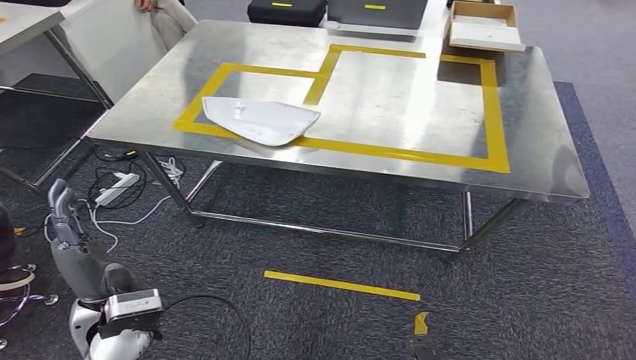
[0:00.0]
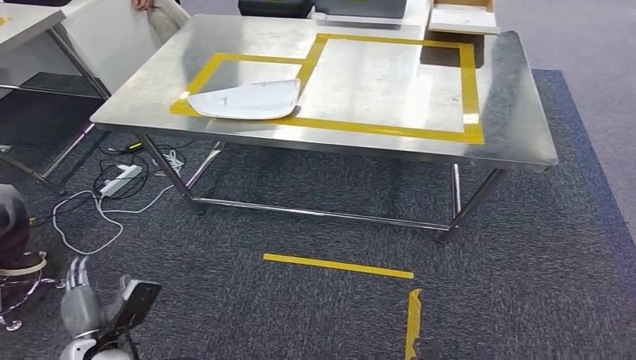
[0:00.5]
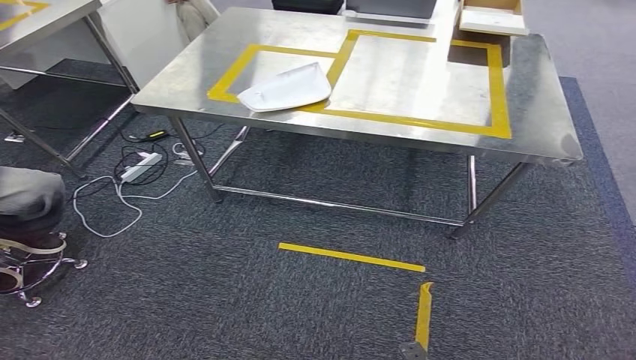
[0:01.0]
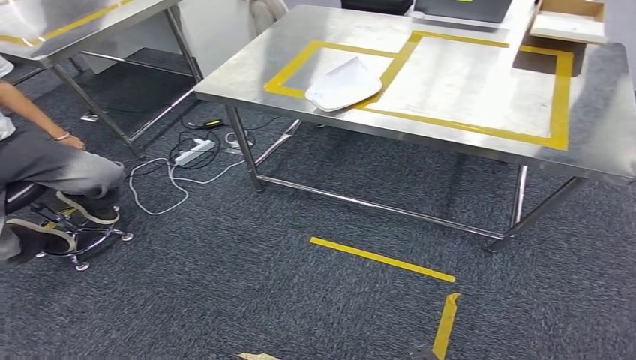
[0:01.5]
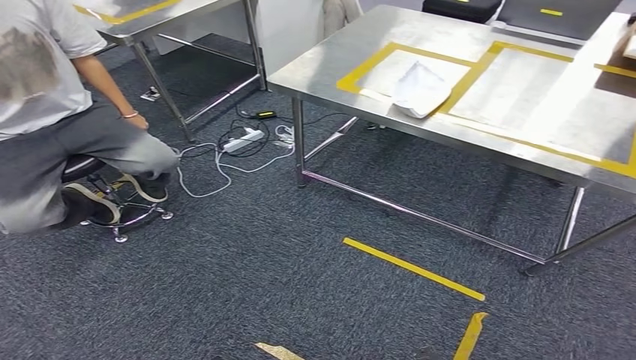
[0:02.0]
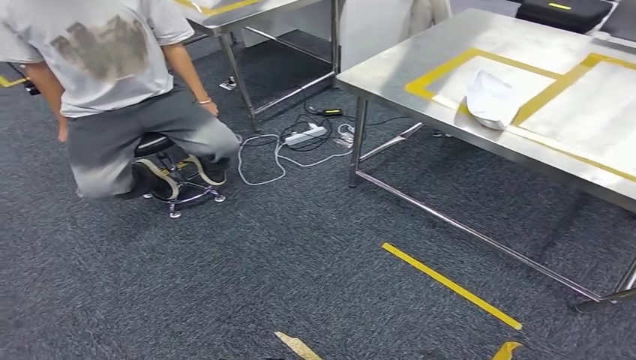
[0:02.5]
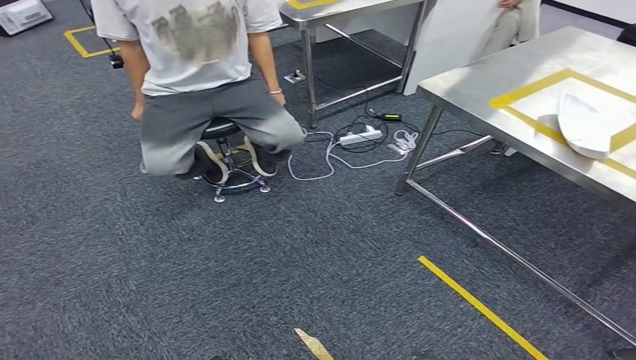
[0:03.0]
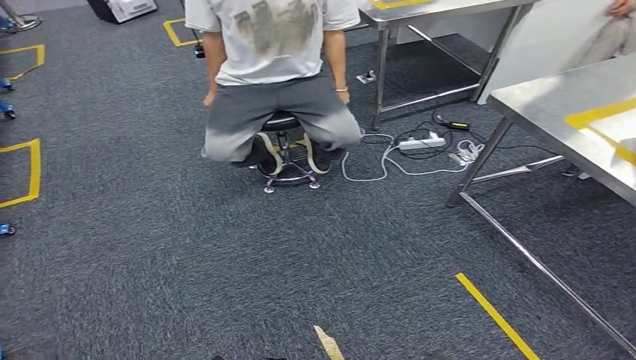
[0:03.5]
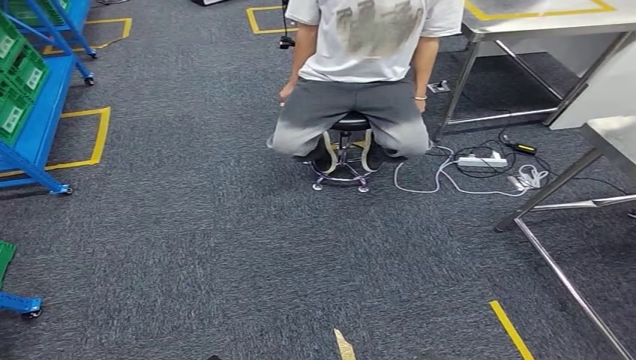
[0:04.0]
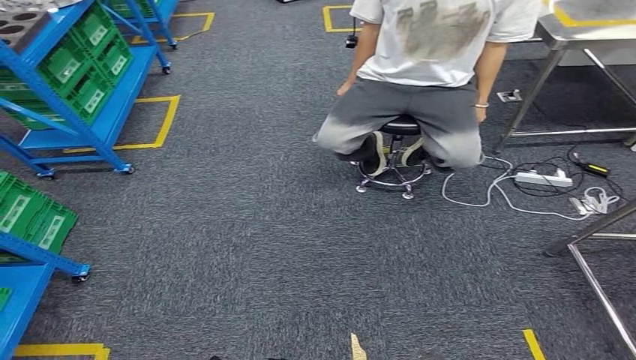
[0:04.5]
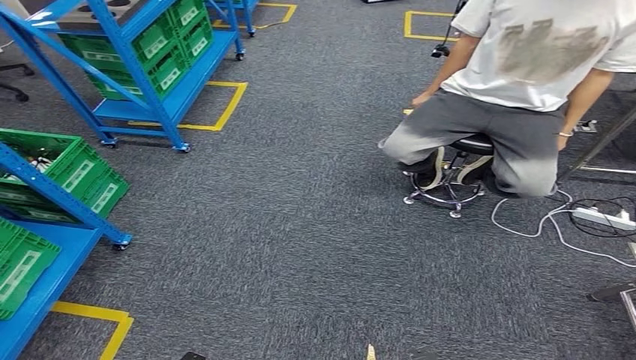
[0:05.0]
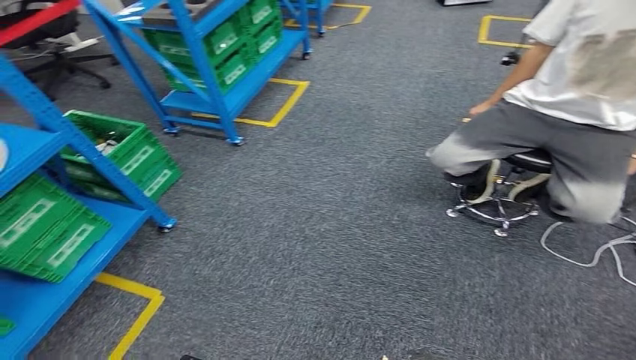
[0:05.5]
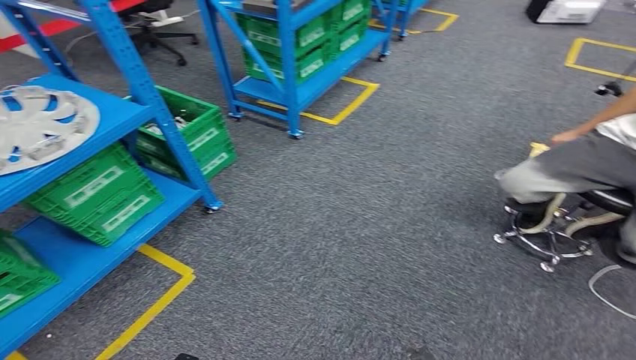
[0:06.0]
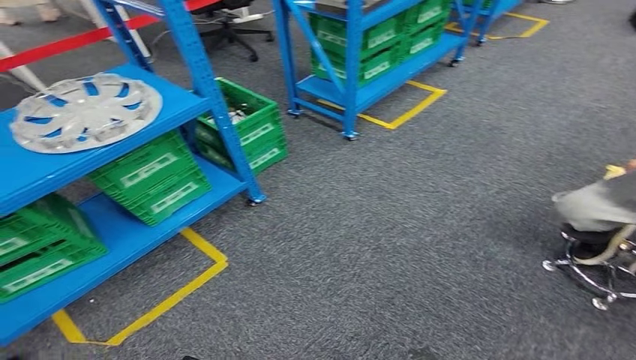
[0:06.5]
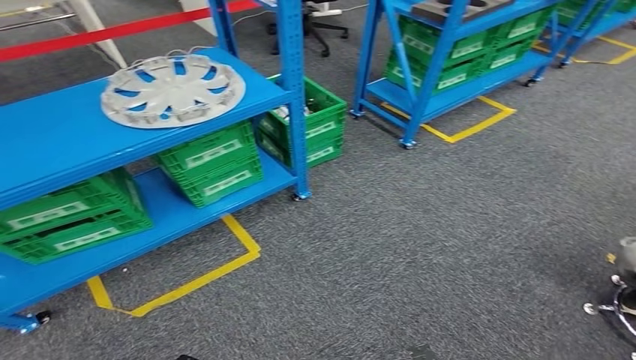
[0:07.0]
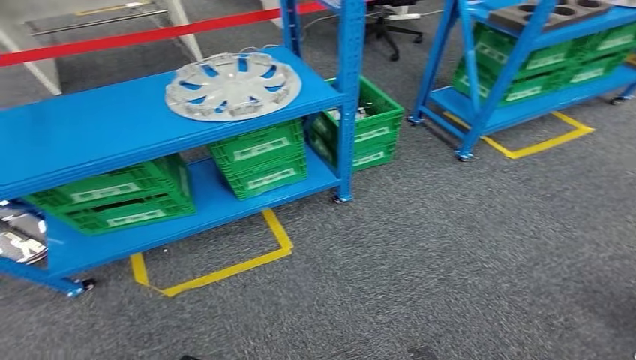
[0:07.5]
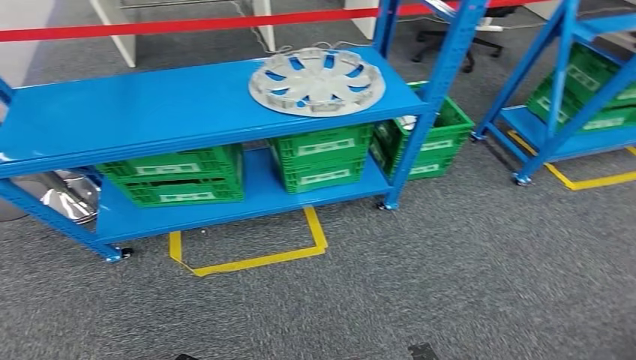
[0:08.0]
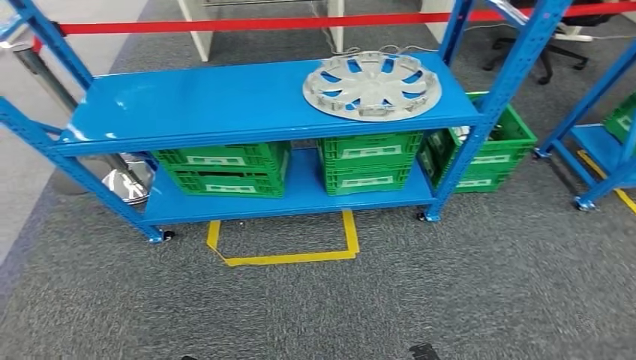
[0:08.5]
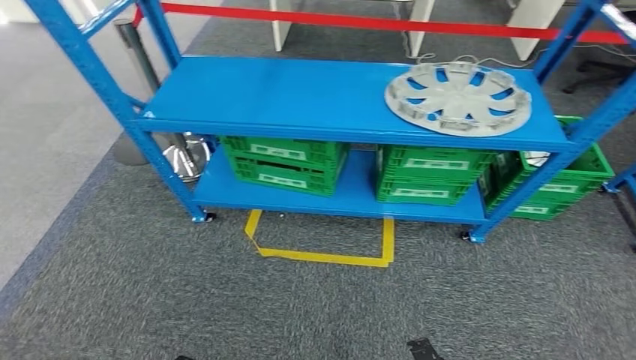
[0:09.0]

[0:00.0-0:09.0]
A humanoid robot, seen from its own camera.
Step, 0:00.0 to 0:09.0: Return to the initial position at the workbench.
